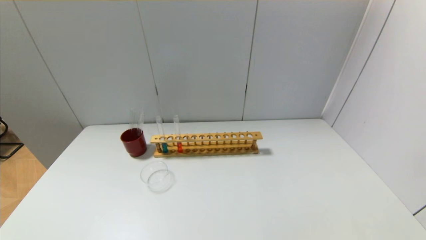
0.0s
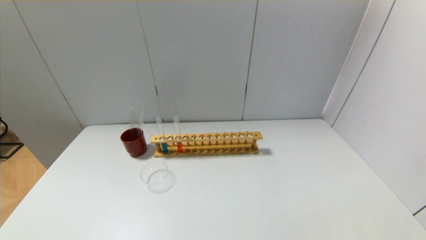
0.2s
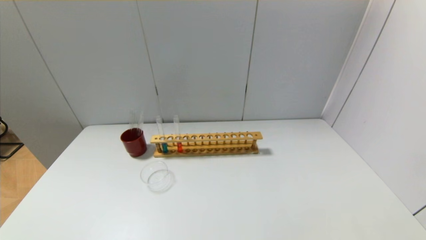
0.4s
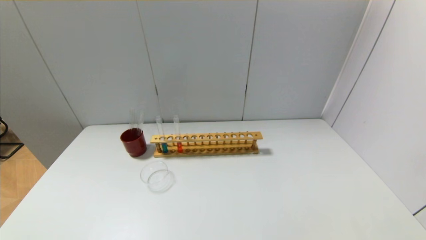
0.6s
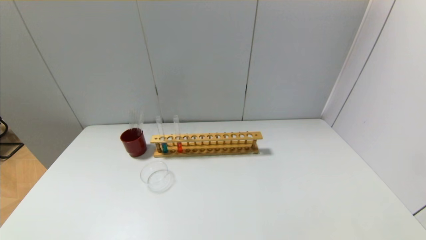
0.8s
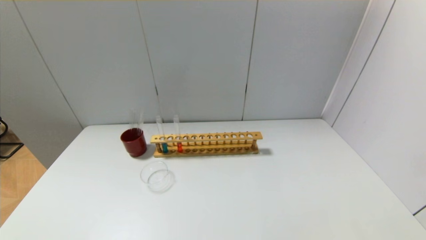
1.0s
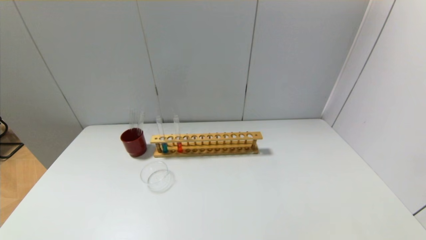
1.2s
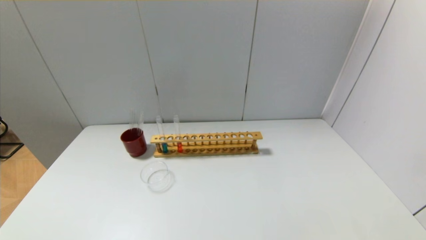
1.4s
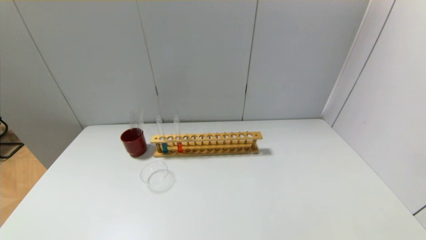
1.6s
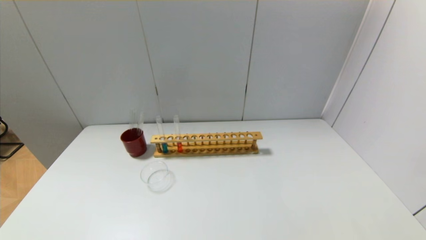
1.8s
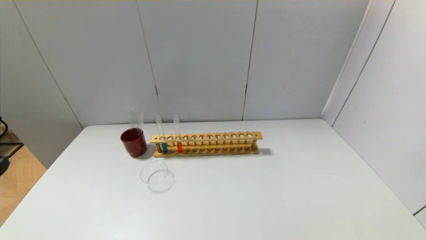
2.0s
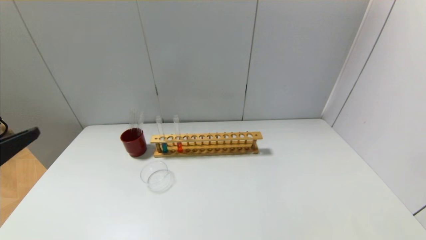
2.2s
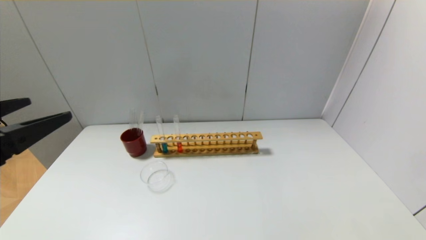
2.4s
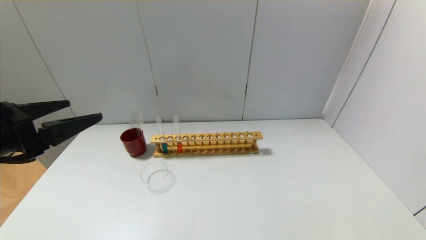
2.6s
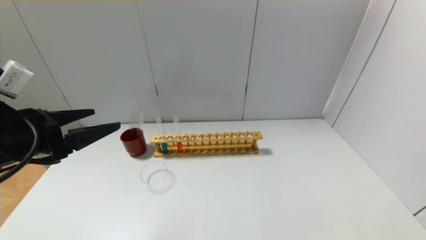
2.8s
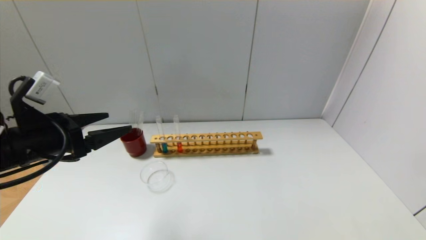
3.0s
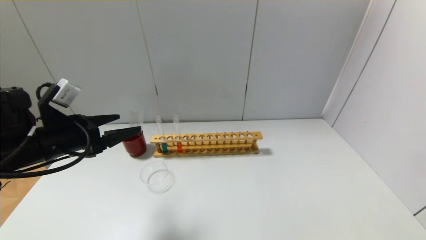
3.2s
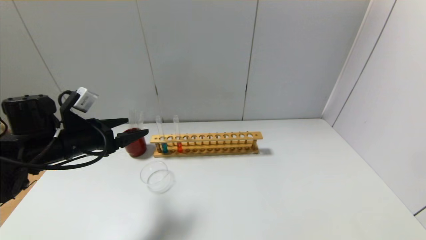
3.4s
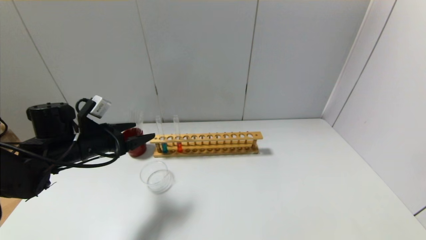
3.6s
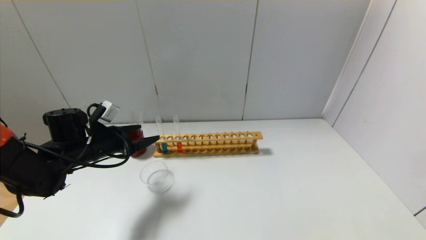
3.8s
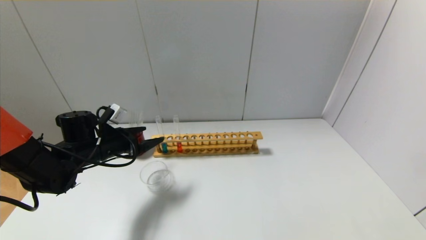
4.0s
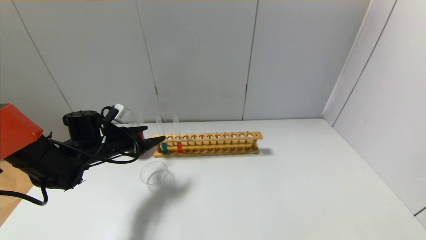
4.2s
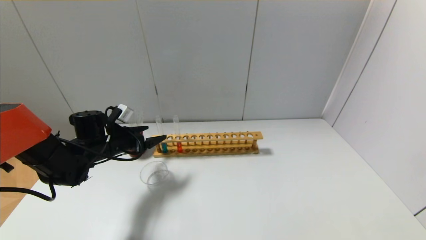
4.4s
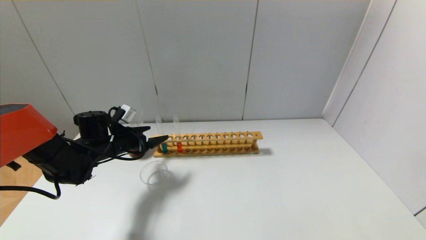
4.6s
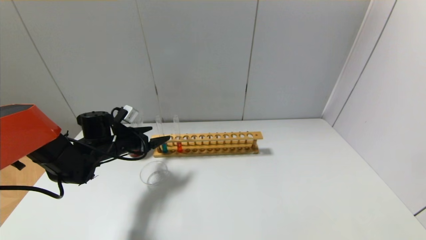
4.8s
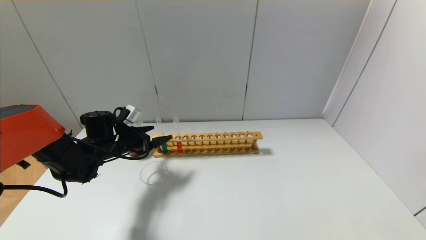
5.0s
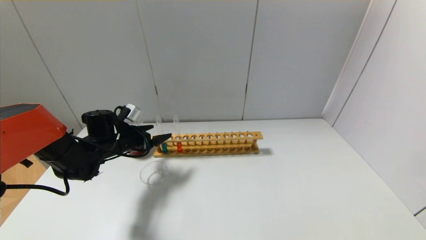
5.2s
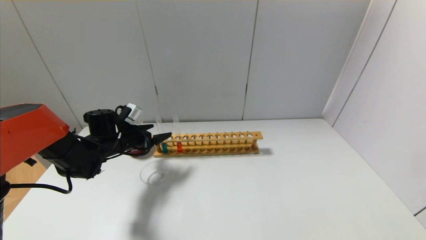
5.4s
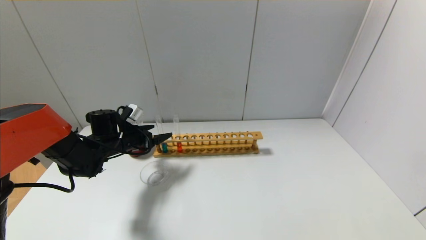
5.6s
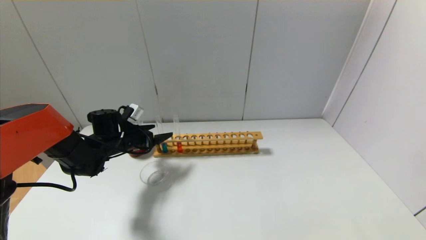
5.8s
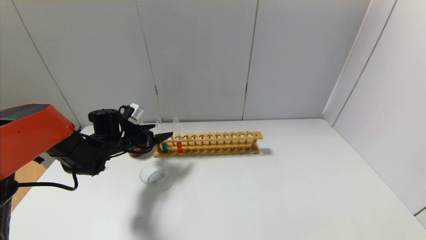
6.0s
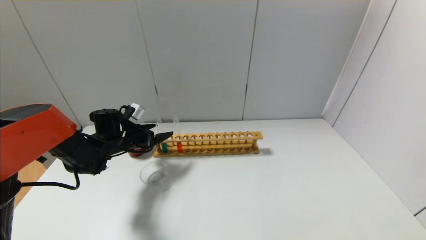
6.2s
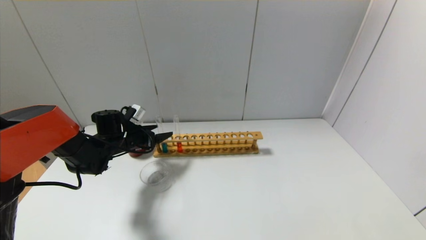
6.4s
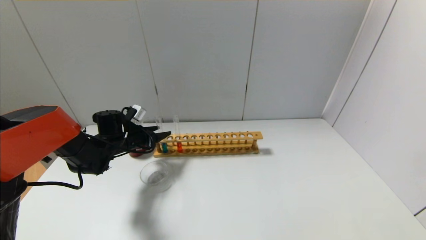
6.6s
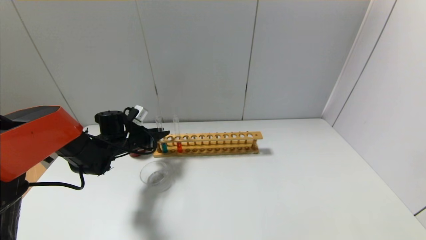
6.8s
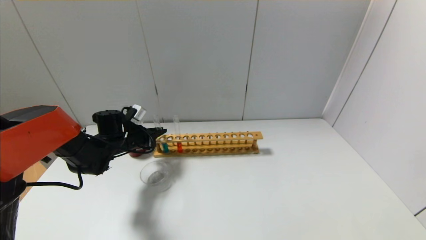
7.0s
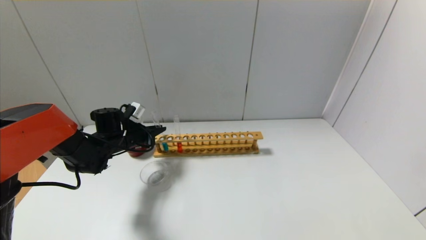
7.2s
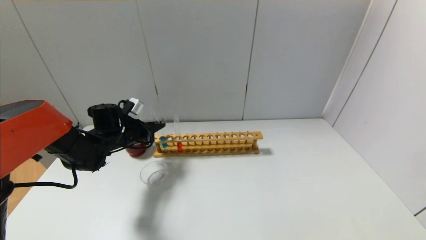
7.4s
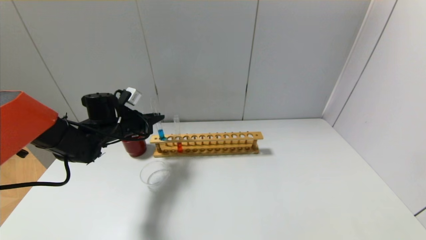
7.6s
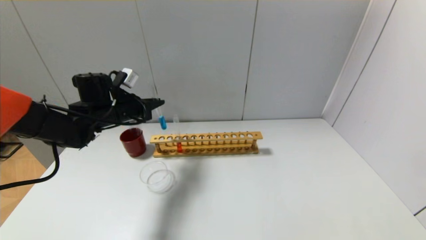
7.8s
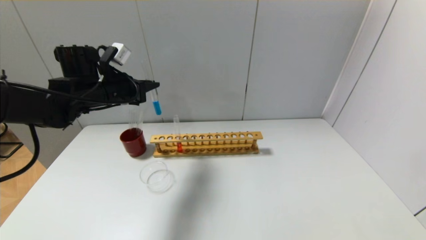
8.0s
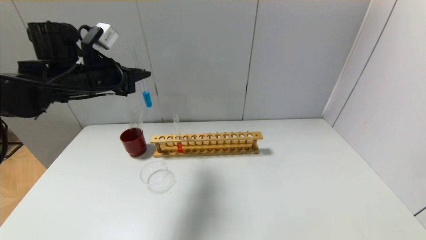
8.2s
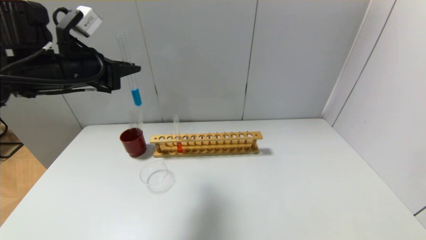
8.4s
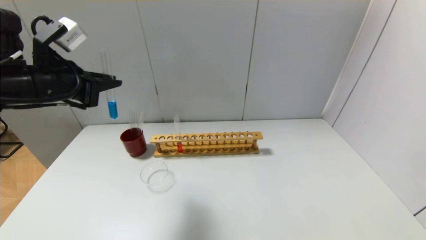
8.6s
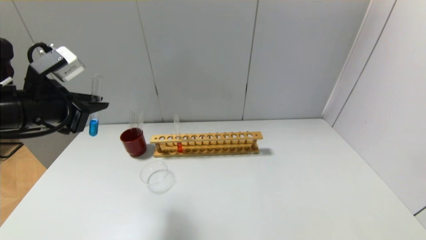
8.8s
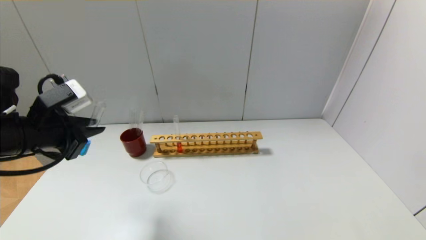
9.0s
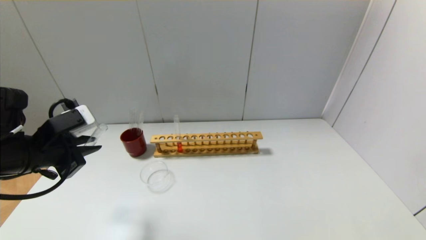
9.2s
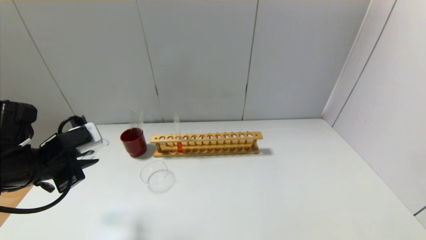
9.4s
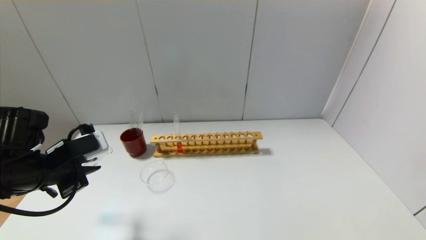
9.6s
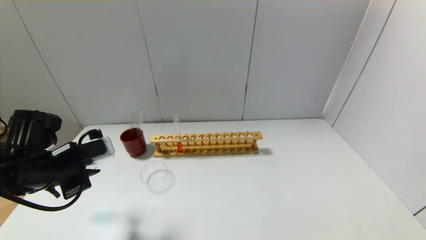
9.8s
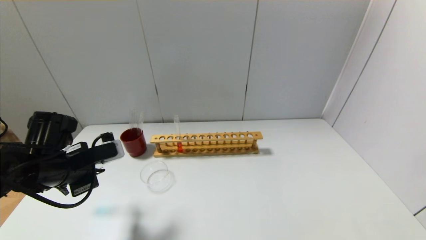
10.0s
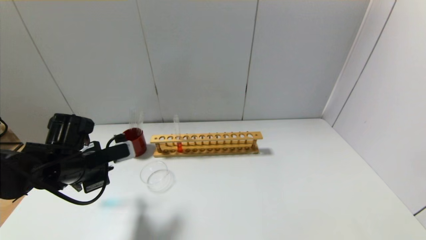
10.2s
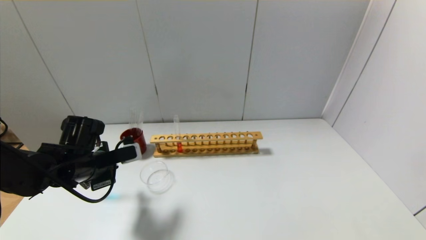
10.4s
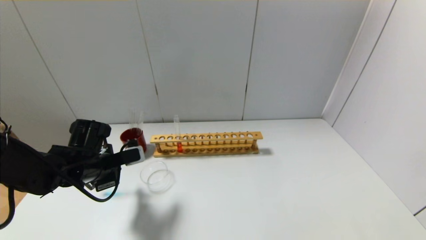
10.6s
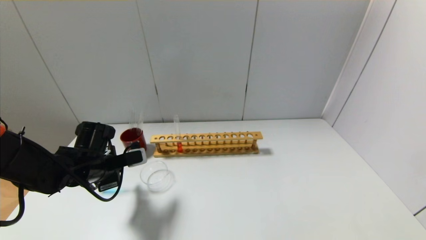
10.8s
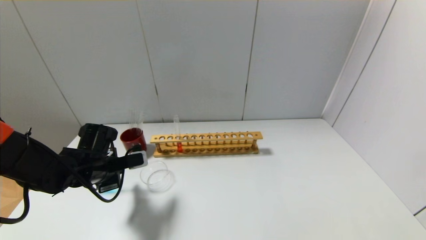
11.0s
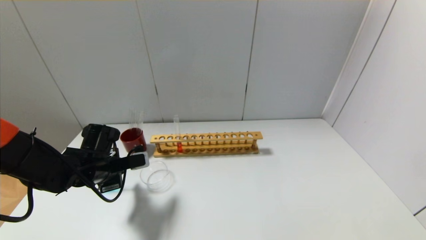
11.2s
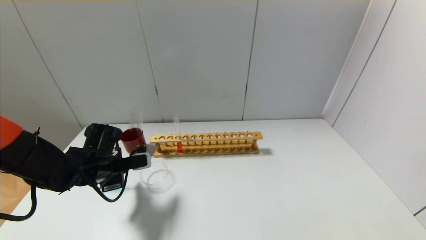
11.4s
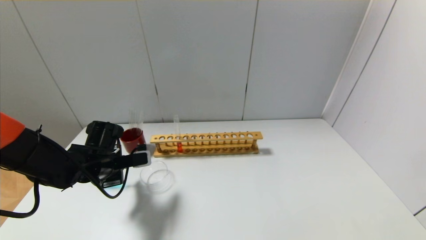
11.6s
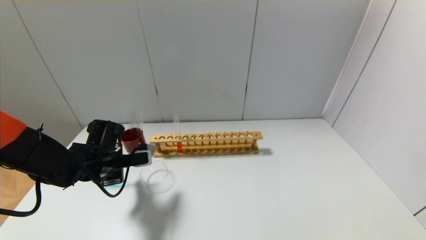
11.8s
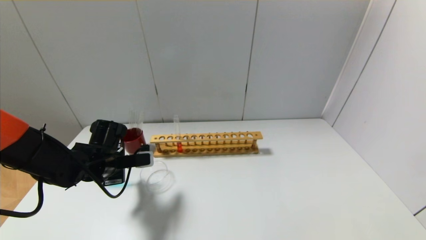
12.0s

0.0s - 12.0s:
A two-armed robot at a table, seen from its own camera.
Step, 0.0s - 7.0s: Grasp the blue reagent with the left gripper.
1.6s - 3.0s: The left gripper moves forward, roughly 25 cm.
3.0s - 4.4s: The left gripper heads forward and downward, covering approximately 20 cm.
4.4s - 6.0s: The grippers move only a little.
6.0s - 7.6s: The left gripper moves upward, some 5 cm, and closes up.
7.6s - 9.0s: The left gripper is displaced backward and upward by roughly 20 cm.
9.0s - 10.4s: The left gripper heads downward, covering some 10 cm.
10.4s - 12.0s: There are only small adjustments of the grippers.

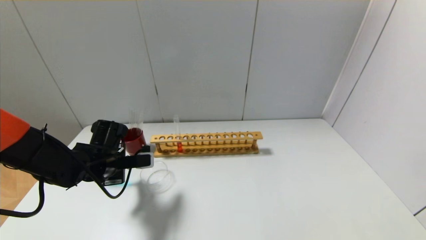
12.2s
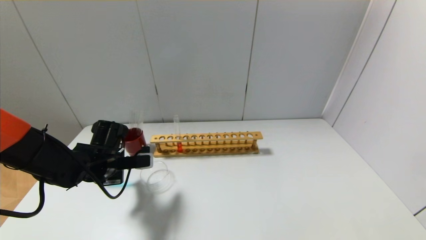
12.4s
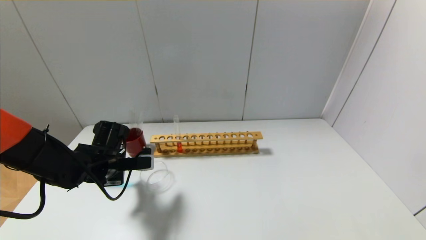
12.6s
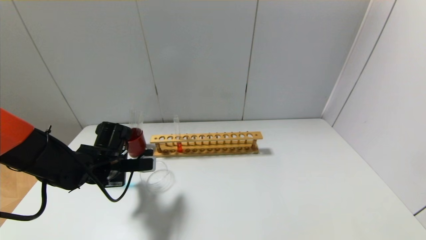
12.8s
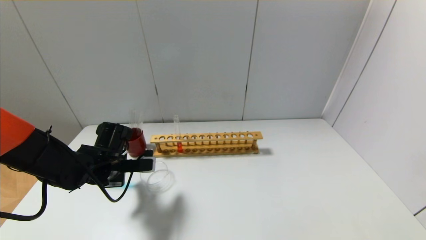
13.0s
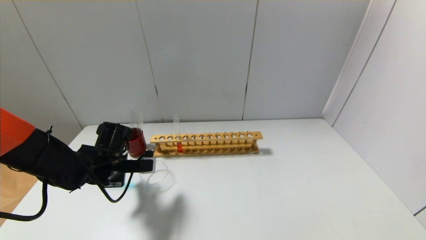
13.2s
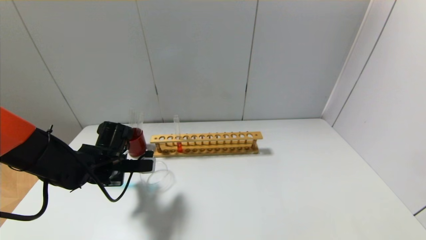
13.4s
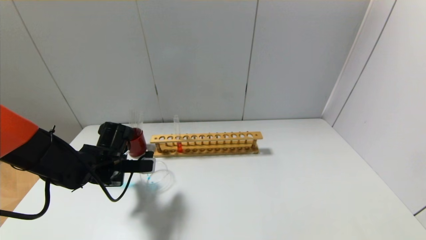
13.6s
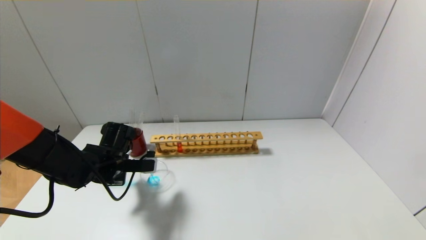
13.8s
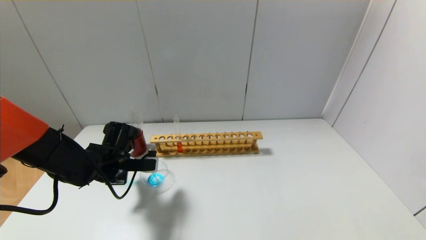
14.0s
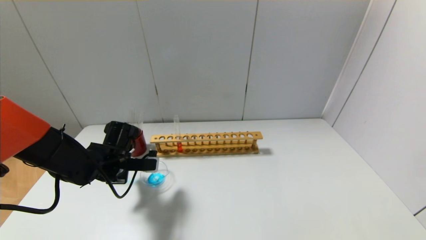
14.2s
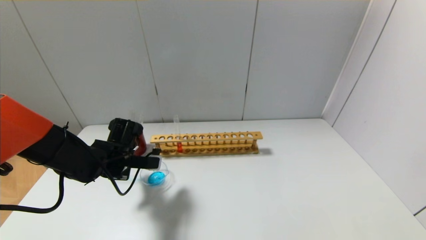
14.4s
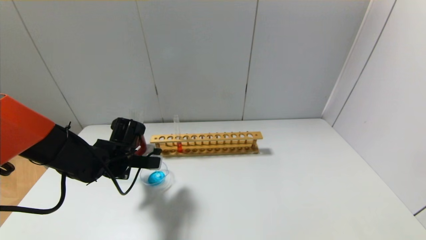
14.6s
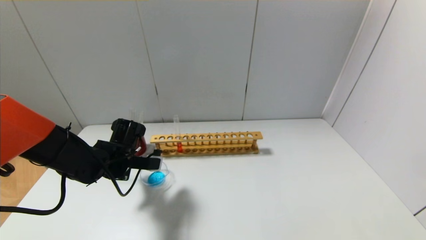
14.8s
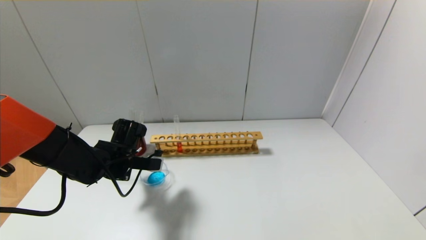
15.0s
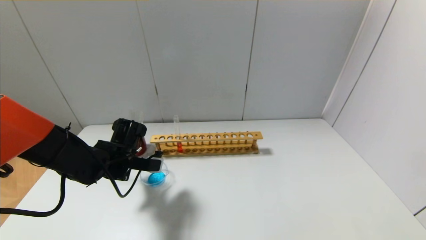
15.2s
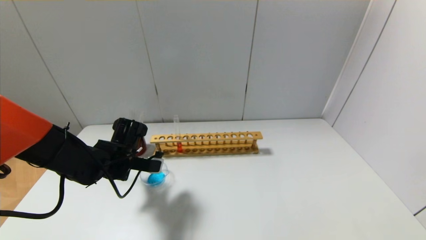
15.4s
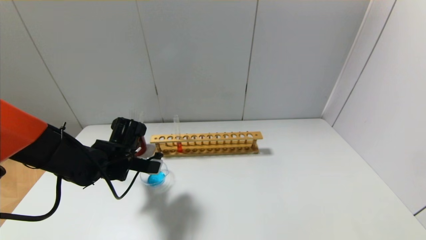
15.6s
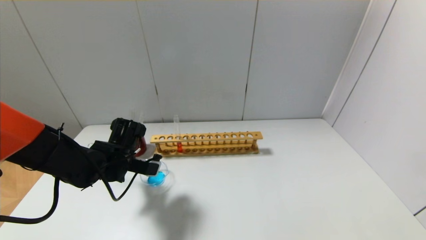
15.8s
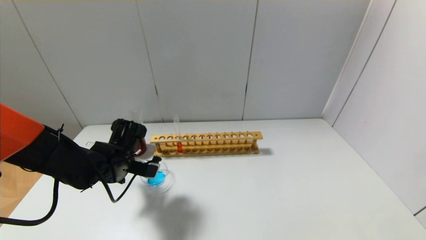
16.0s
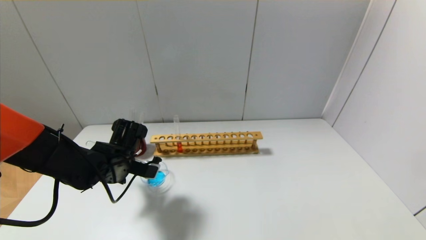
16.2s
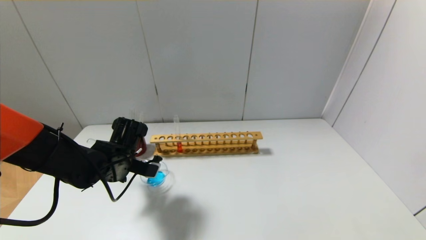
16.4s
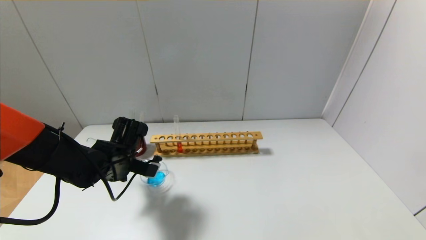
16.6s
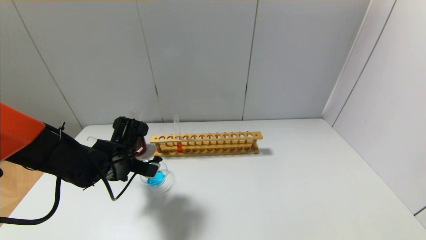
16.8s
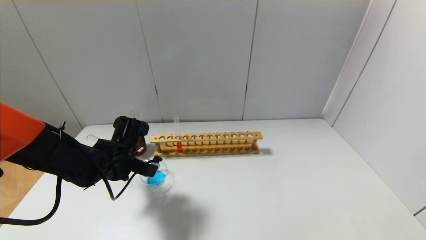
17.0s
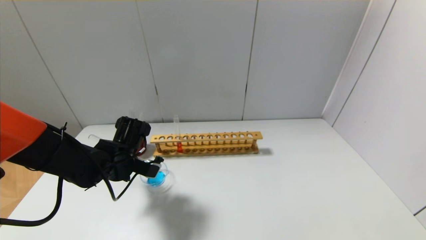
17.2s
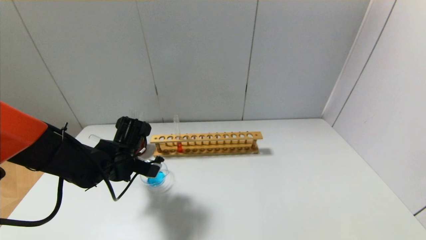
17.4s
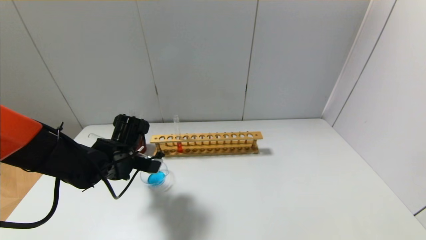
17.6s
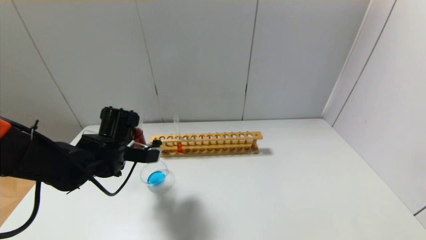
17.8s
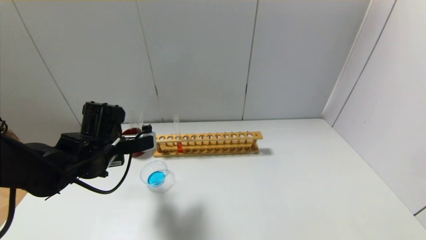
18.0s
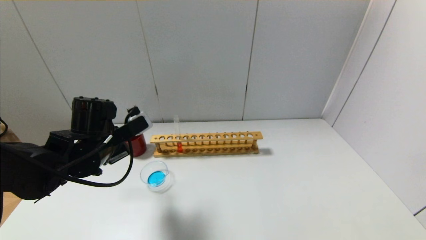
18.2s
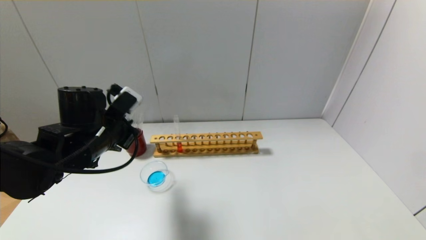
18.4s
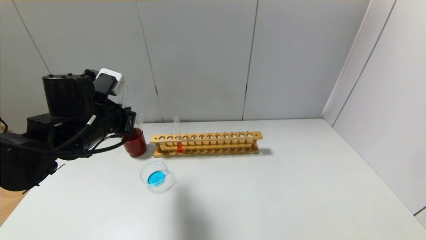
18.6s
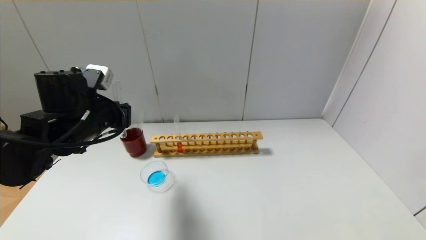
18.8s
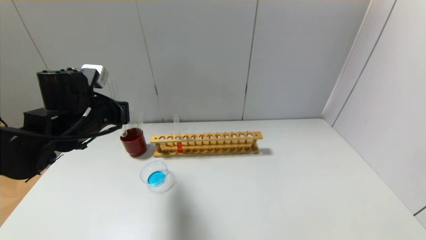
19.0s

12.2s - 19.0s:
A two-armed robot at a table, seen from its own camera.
Step, 12.2s - 17.4s: Pour the blue reagent into the graduated cylinder with the left gripper.
12.2s - 15.0s: There are only small adjustments of the grippers.
15.0s - 17.6s: The grippers make only small movements.
17.6s - 19.0s: The left gripper shifts approximately 10 cm upward.
